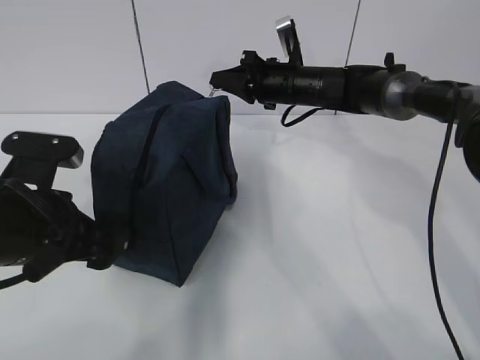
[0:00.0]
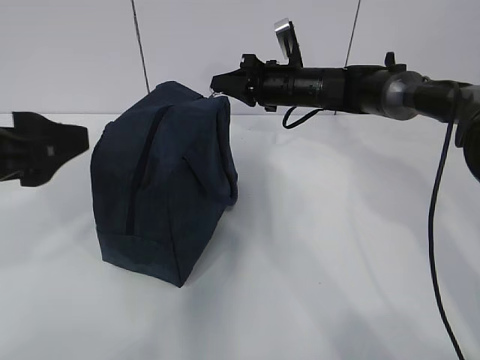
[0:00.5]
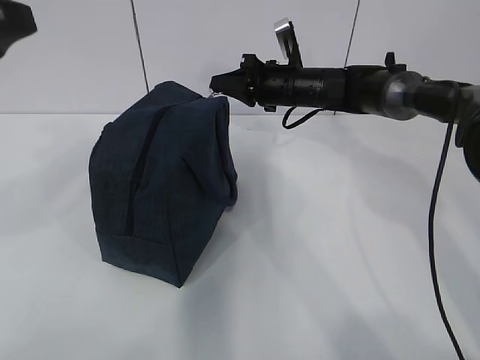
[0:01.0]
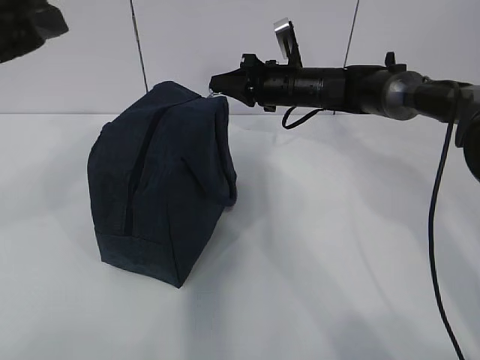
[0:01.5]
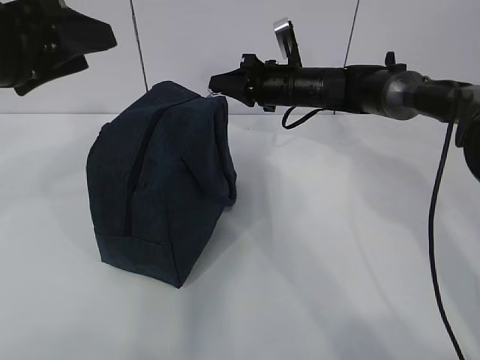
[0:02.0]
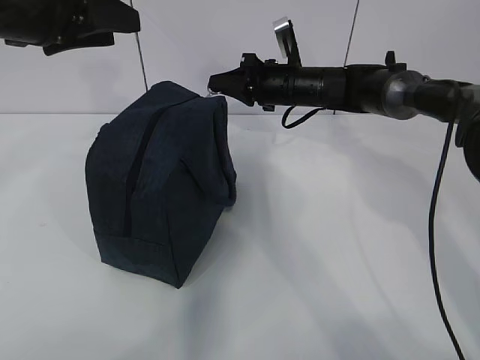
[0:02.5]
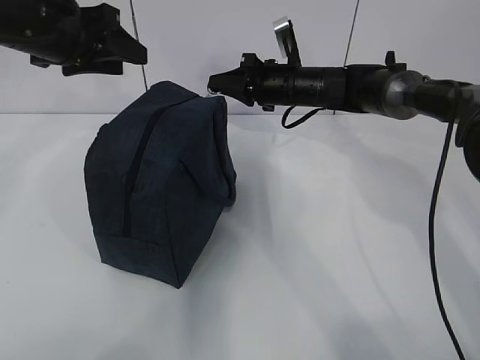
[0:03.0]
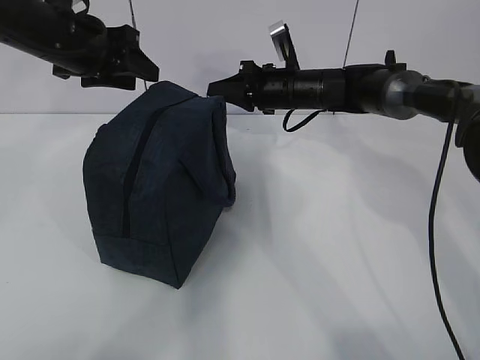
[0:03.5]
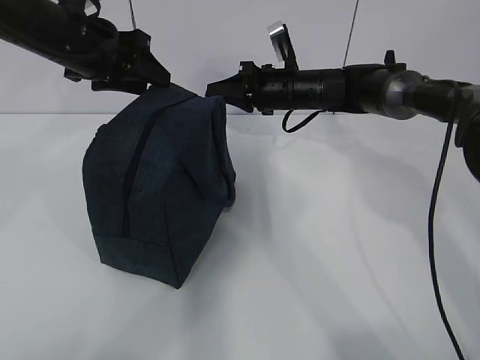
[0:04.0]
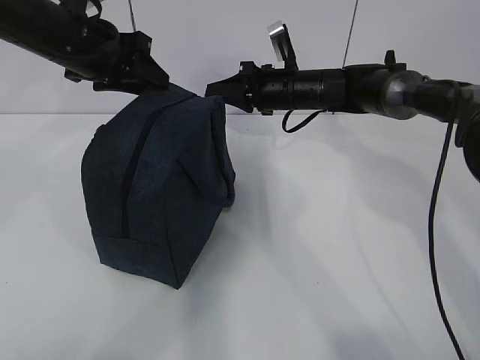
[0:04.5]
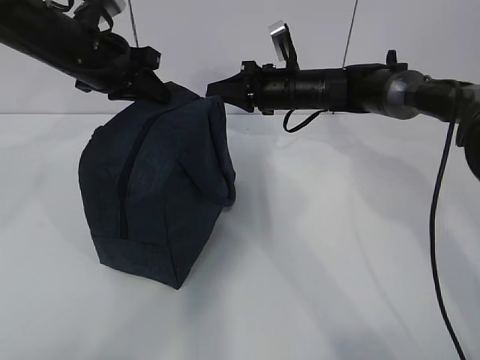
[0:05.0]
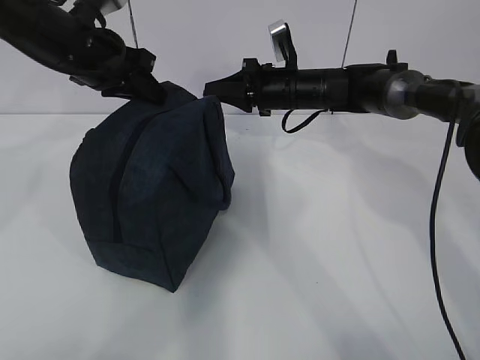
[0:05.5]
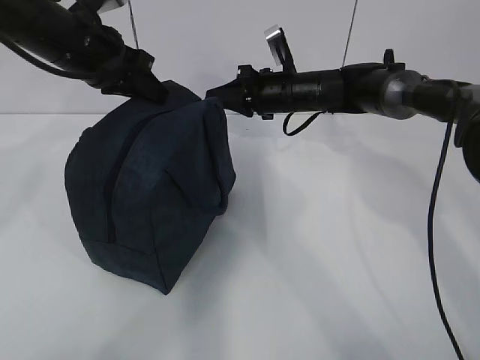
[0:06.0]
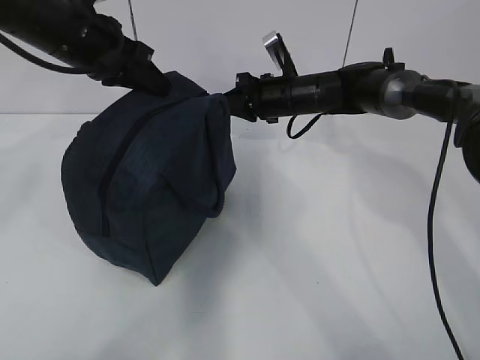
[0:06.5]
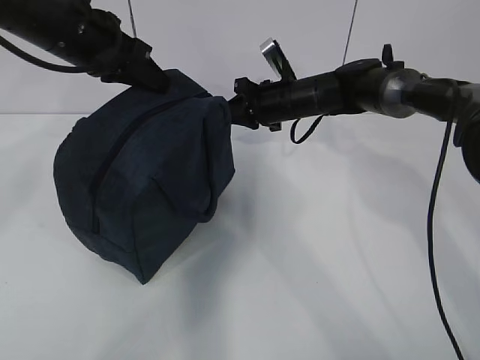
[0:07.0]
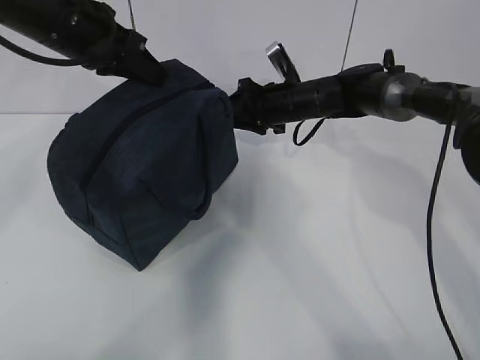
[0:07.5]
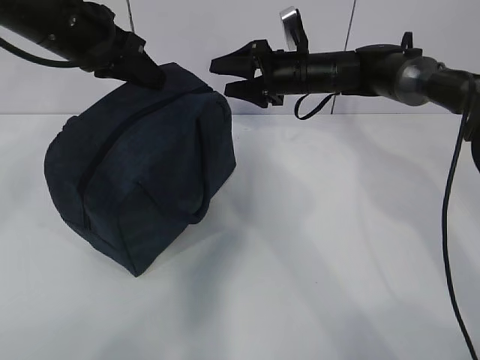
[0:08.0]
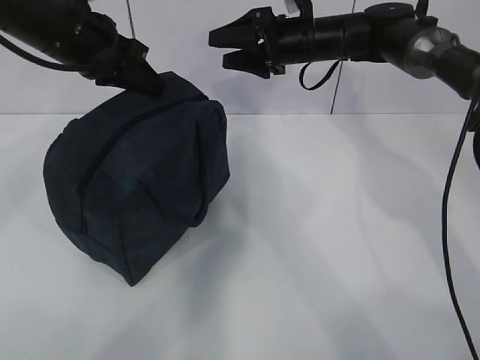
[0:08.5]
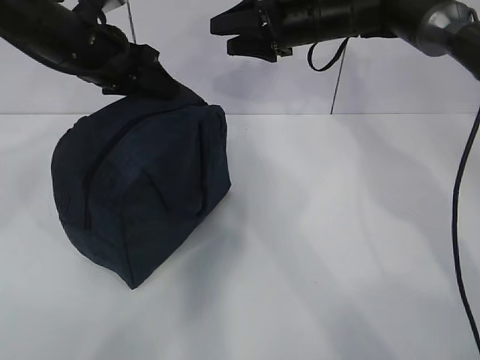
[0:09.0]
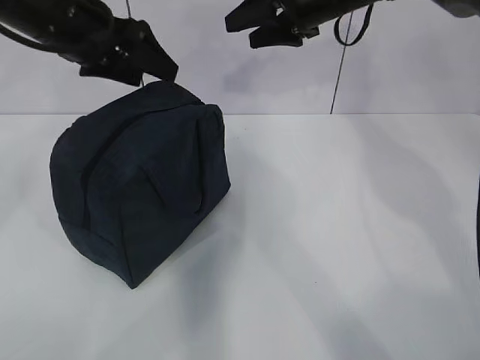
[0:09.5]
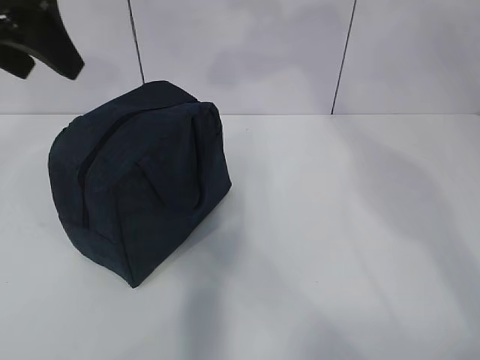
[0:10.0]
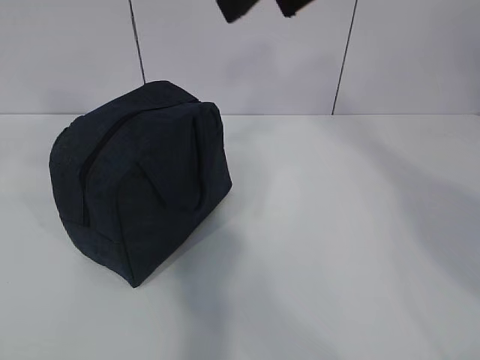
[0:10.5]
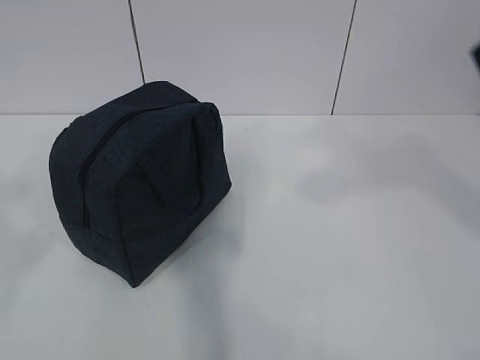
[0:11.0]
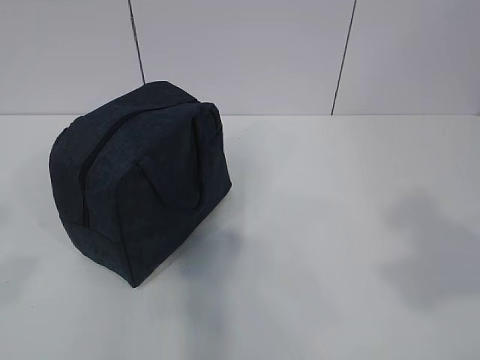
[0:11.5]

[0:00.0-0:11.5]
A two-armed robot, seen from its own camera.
0:00.0 to 0:02.0: The left gripper is displaced upward by some 15 cm.
0:02.0 to 0:04.0: The left gripper shifts roughly 15 cm forward.
0:04.0 to 0:06.0: The left gripper closes up.
0:06.0 to 0:07.5: The right gripper opens up.
0:07.5 to 0:09.5: The right gripper goes approximately 15 cm upward, and opens. Meanwhile the left gripper opens.
0:09.5 to 0:11.5: Both grippers move backward, some 40 cm.
